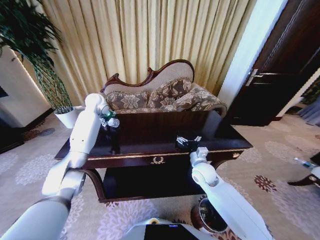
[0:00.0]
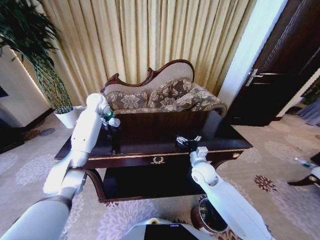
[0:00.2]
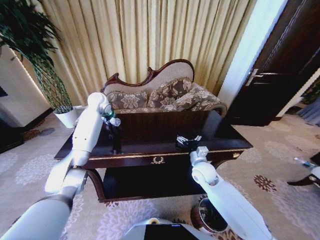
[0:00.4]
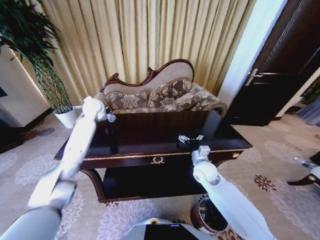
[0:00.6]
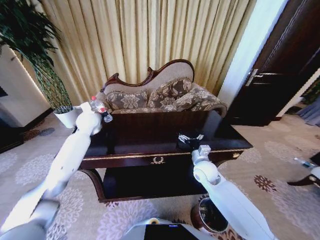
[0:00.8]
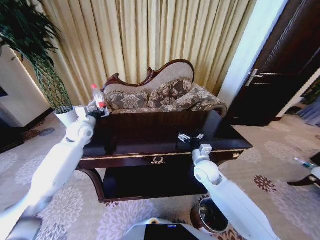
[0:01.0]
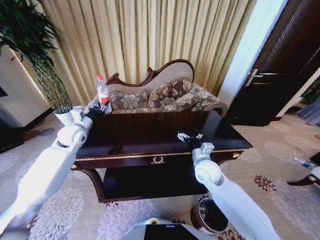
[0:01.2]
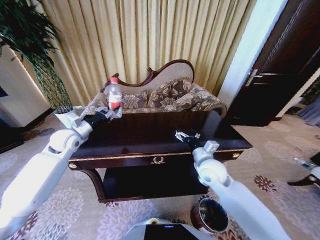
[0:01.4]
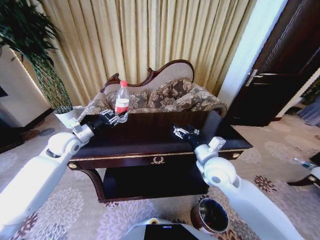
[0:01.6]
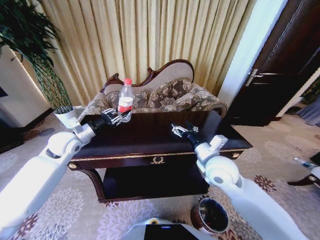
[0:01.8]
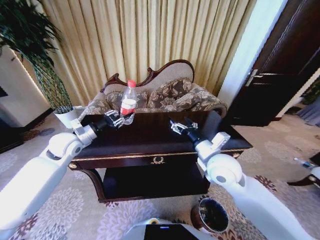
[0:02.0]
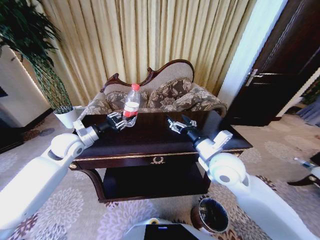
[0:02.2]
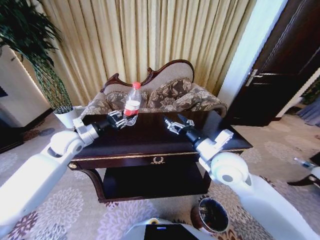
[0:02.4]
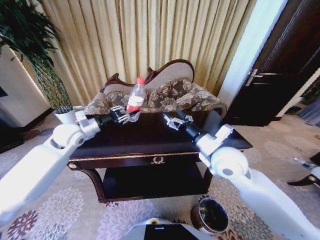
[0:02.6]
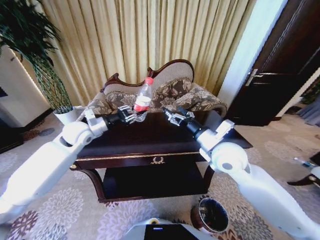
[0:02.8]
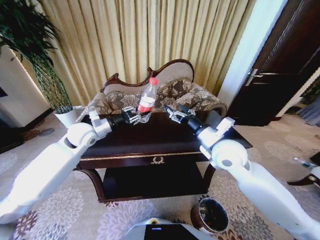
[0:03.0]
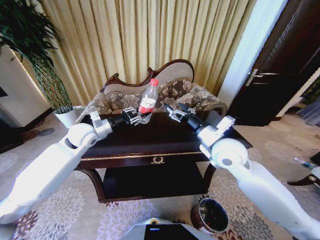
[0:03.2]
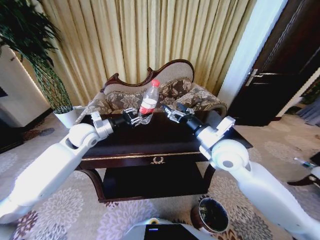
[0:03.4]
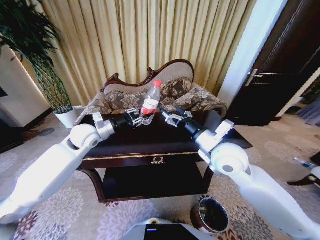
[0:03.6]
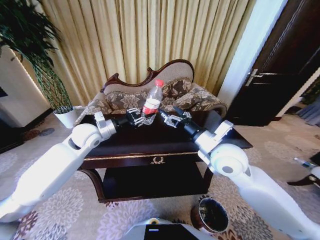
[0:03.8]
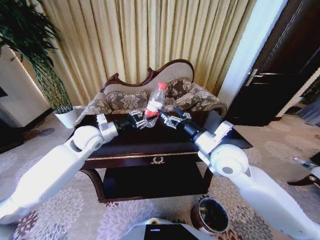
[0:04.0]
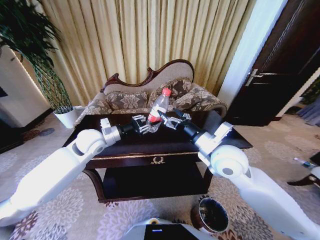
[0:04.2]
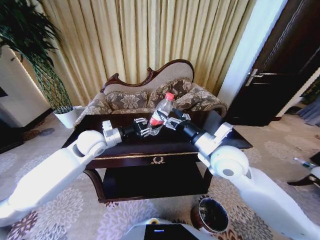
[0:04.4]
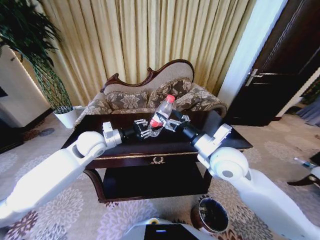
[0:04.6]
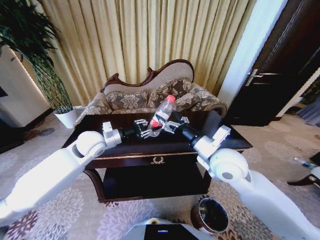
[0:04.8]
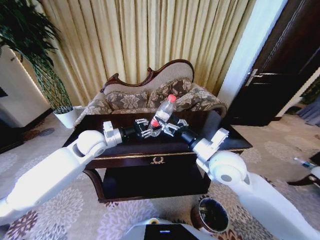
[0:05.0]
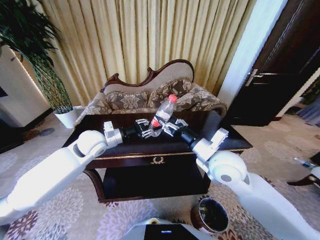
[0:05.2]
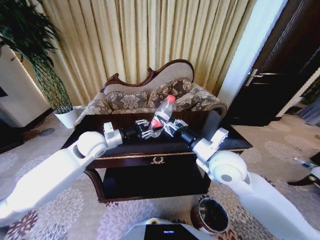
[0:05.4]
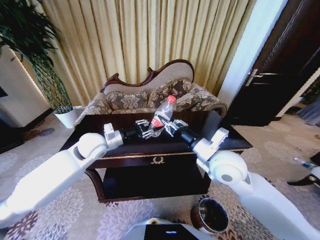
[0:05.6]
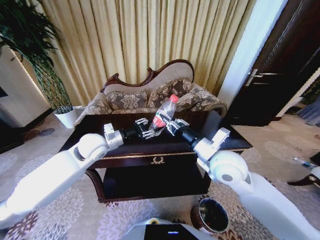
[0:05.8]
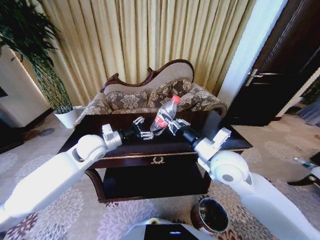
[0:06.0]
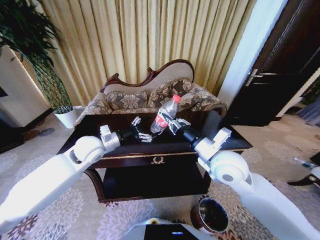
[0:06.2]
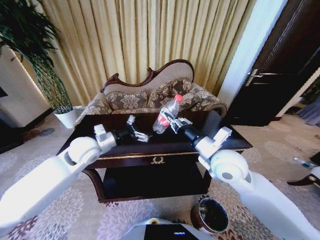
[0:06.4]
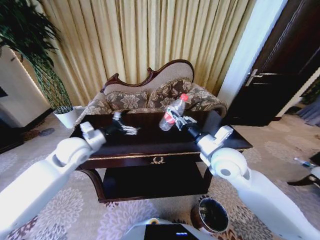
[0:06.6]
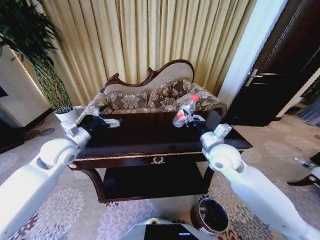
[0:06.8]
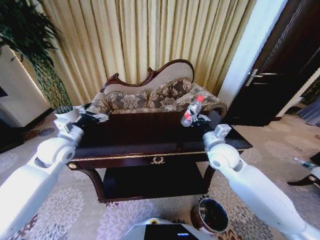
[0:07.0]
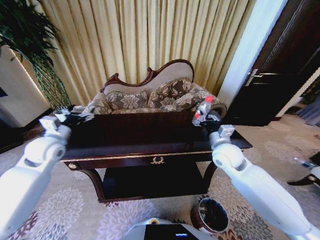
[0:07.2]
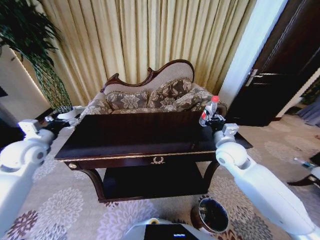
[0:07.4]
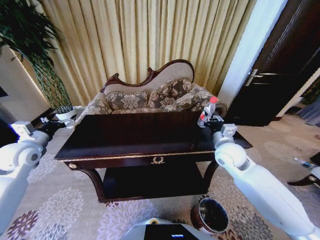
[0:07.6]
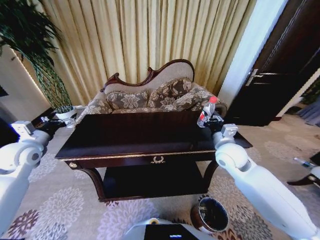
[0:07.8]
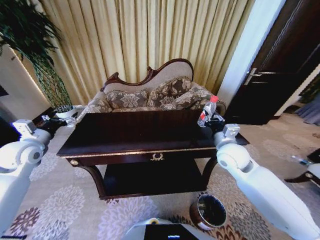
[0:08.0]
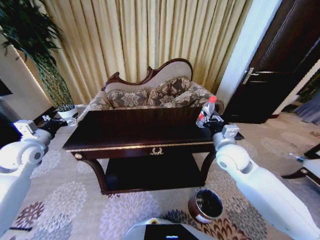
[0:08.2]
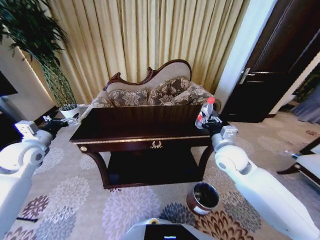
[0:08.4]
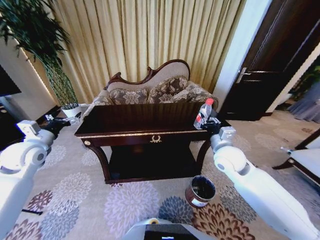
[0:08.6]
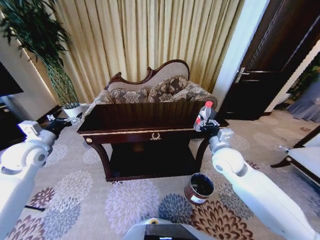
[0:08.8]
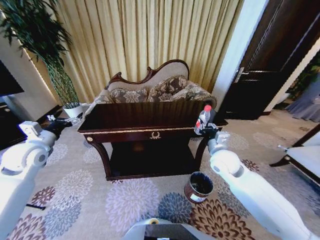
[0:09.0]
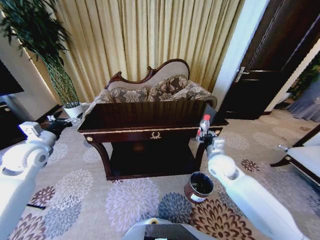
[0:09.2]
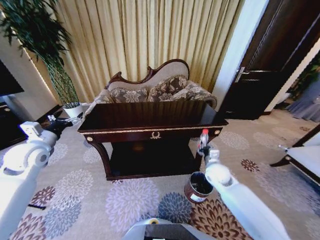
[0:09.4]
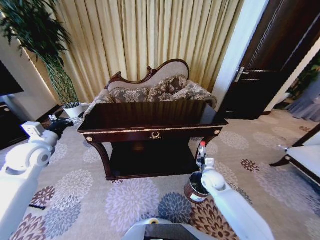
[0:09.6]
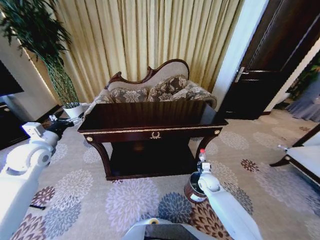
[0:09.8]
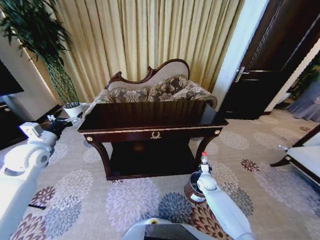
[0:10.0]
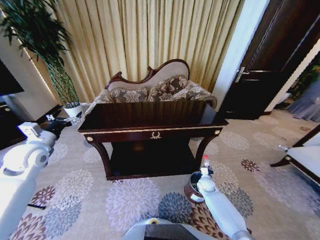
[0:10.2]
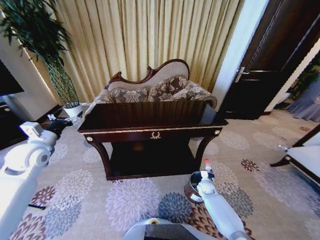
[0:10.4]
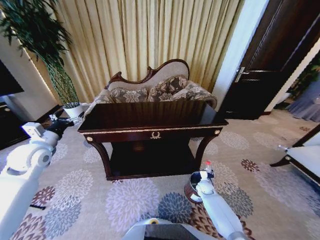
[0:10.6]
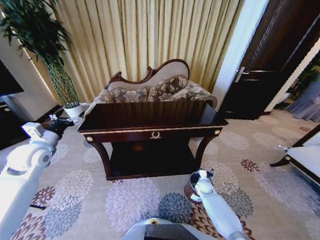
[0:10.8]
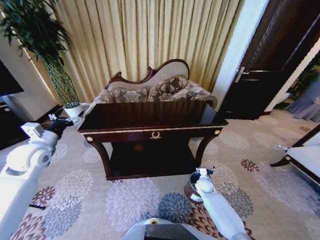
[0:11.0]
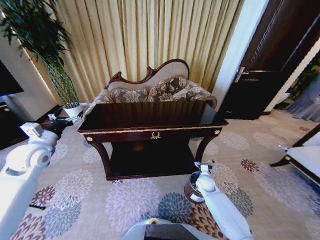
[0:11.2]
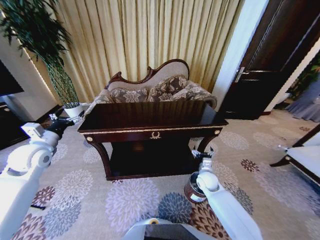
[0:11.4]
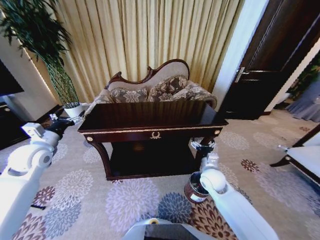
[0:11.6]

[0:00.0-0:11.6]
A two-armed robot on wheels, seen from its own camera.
Task of the whole recording: Move to the front of the table and place the trash on the table into the trash bin.
0:00.0 to 0:01.4: The left gripper is displaced backward and to the left by some 20 cm, and closes up, while the right gripper travels upward by approximately 10 cm.
0:01.4 to 0:02.8: The left gripper moves to the right, some 5 cm, while the right gripper goes about 10 cm upward.
0:02.8 to 0:04.4: The left gripper goes some 5 cm to the right.
0:04.4 to 0:05.8: The right gripper closes.
0:05.8 to 0:07.2: The left gripper shifts approximately 15 cm to the left, and opens its fingers; the right gripper travels forward and to the right by approximately 10 cm.
0:08.8 to 0:10.2: The right gripper heads downward, covering approximately 35 cm.
0:10.2 to 0:11.6: The right gripper shifts roughly 20 cm upward, and opens.

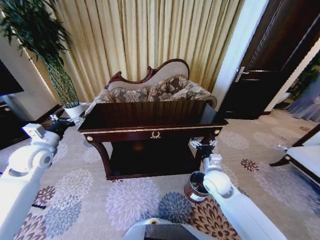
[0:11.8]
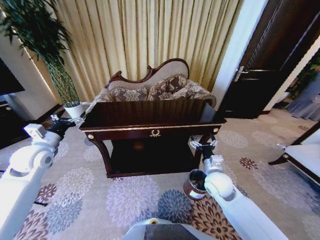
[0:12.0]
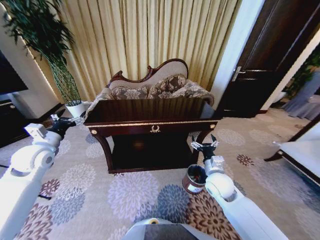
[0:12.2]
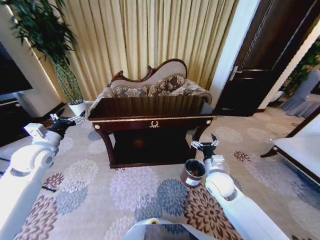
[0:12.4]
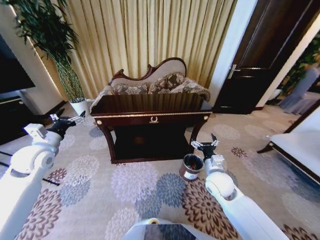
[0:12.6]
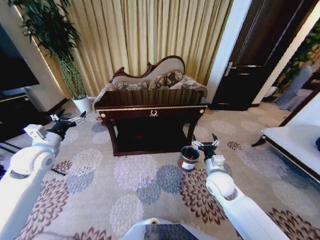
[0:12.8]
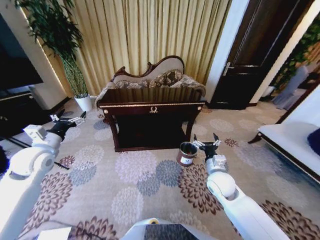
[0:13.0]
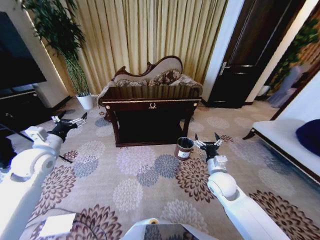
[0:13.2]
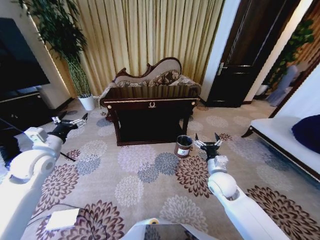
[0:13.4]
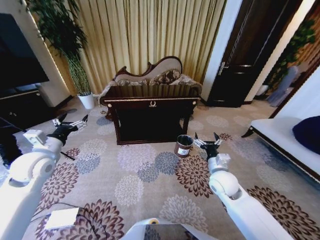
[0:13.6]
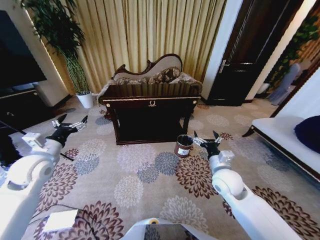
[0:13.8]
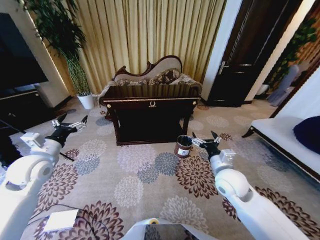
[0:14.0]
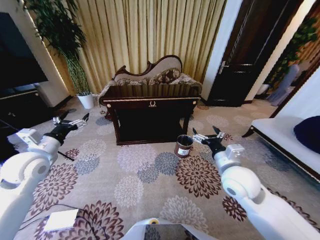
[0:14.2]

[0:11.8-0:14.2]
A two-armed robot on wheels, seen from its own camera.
Task of the whole recording: Move to the front of the table and place the trash on the table into the trash bin.
0:13.0 to 0:14.2: The right gripper moves upward, roughly 10 cm.

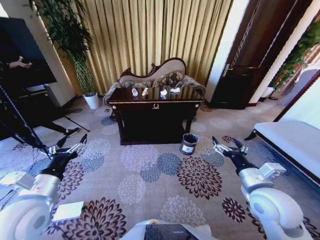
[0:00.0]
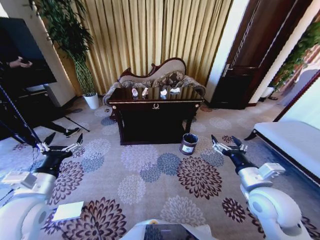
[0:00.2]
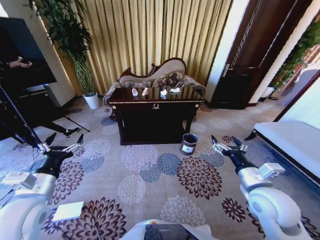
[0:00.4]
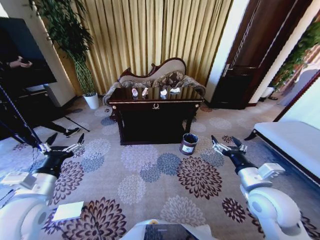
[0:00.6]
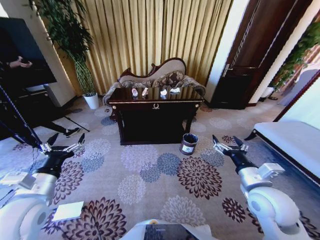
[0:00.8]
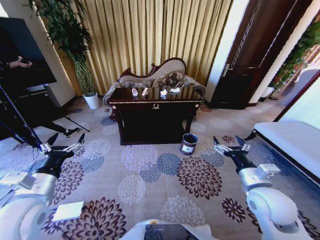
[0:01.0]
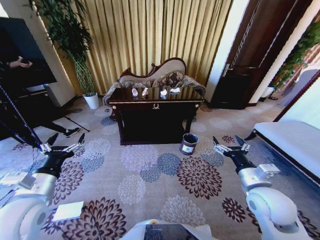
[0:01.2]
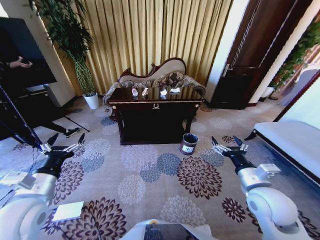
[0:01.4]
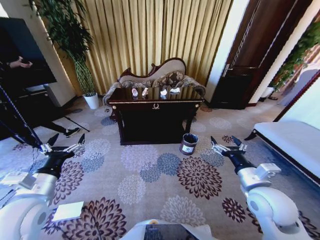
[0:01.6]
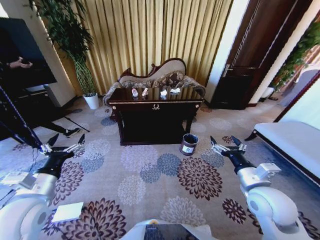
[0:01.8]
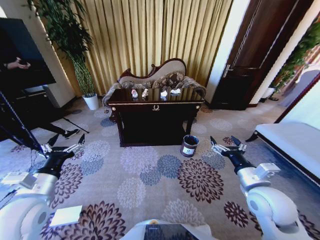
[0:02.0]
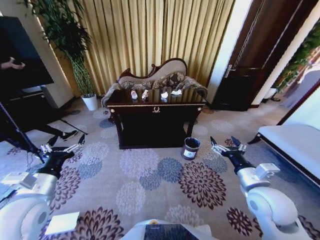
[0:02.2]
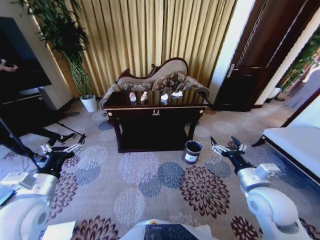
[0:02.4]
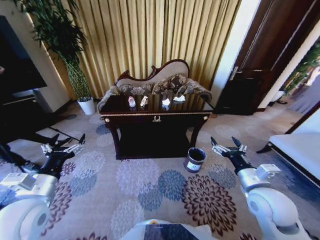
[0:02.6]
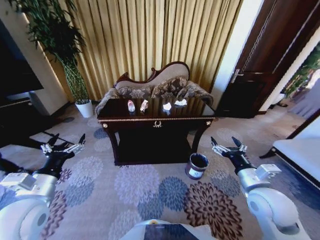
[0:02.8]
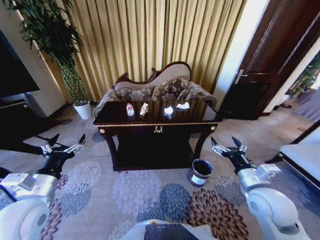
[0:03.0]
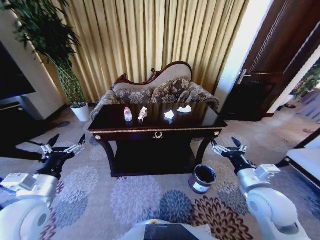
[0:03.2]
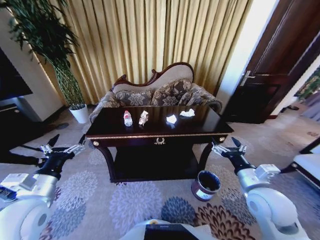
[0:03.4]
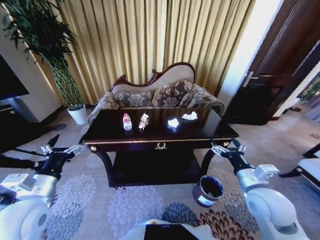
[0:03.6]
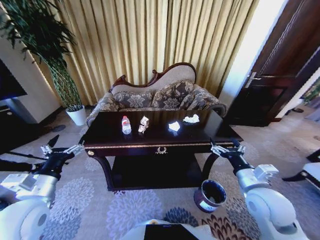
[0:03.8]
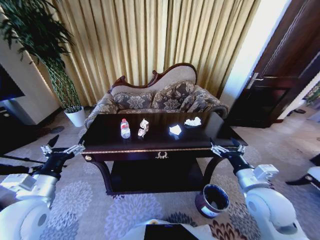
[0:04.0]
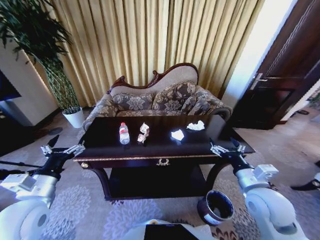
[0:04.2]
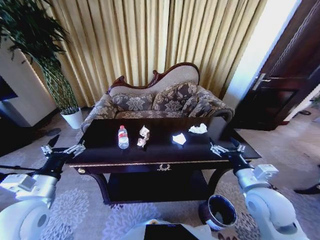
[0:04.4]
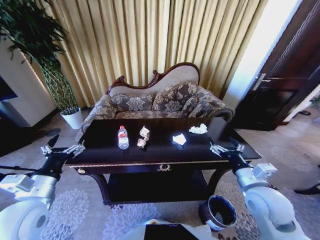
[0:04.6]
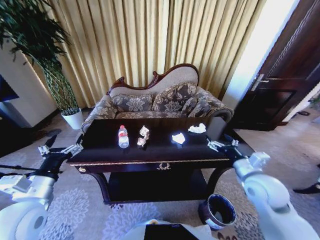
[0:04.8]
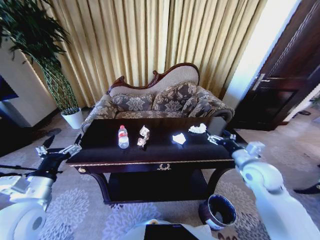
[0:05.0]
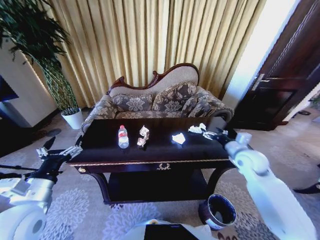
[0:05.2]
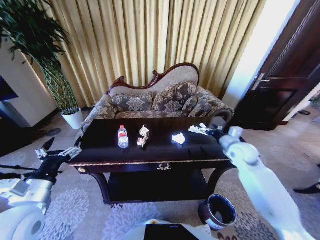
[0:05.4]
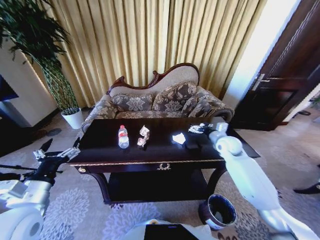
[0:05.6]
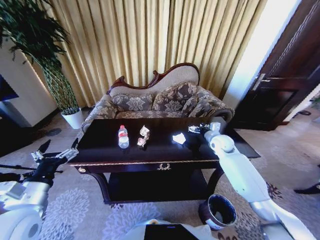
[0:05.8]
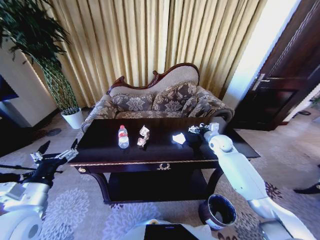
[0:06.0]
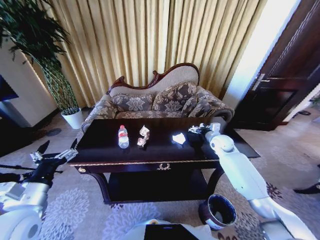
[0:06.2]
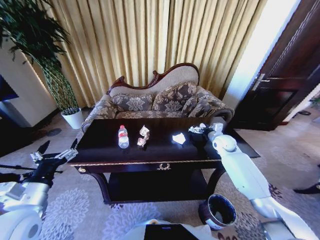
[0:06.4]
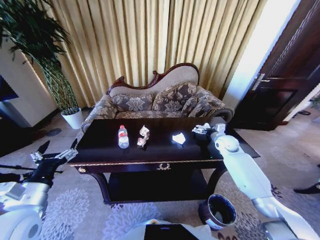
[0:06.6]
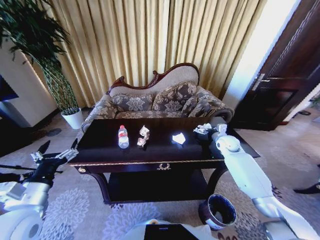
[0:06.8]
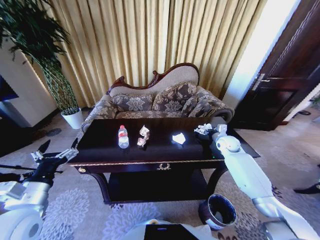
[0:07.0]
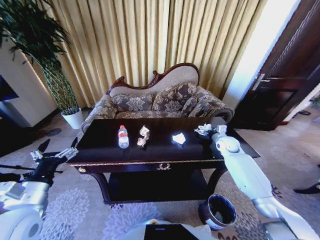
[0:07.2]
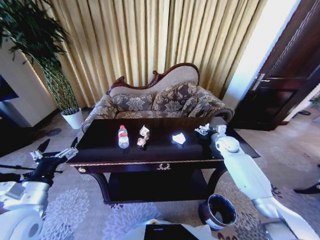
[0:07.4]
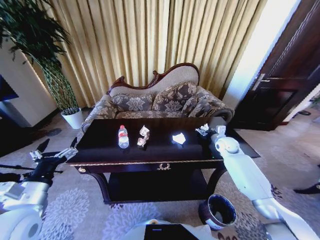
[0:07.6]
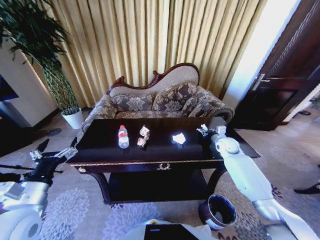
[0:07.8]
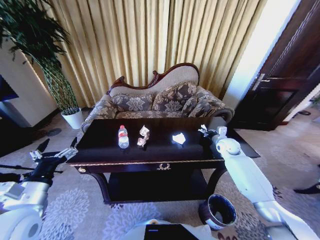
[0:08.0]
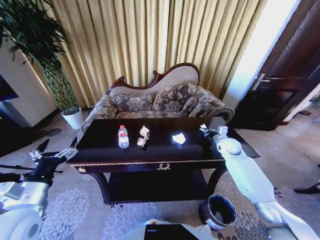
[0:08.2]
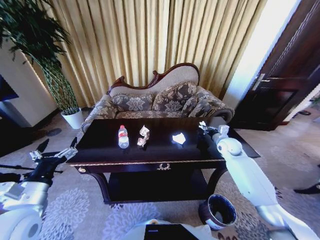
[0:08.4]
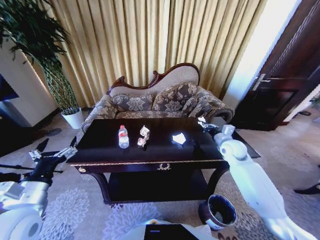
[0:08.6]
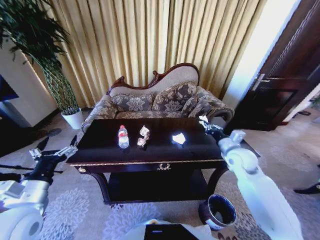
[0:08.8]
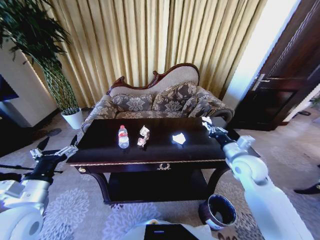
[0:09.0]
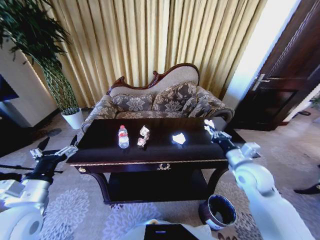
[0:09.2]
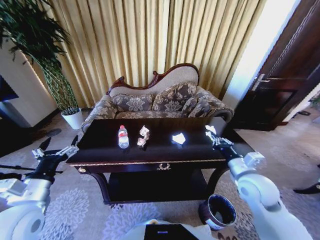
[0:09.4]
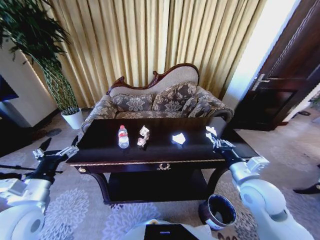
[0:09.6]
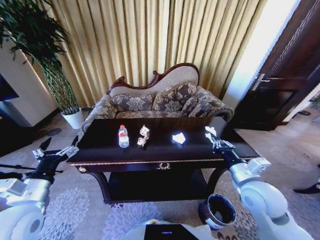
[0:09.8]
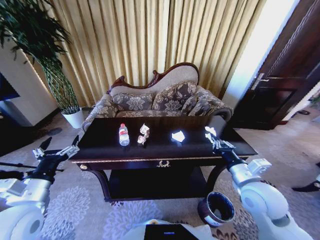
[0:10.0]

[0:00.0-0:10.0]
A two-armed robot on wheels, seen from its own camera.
Task of the whole recording: Move to the front of the table and place the trash on the table into the trash bin.
0:04.2 to 0:05.8: The right gripper is displaced forward by roughly 25 cm.
0:05.8 to 0:07.2: The right gripper shifts some 5 cm to the right.
0:07.2 to 0:08.6: The right gripper moves backward, some 5 cm, and closes.
0:08.6 to 0:10.0: The right gripper goes roughly 20 cm backward.
